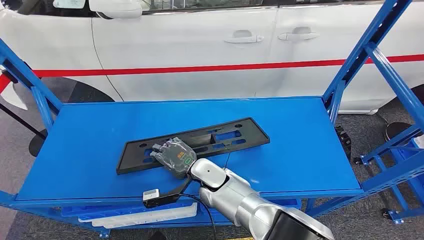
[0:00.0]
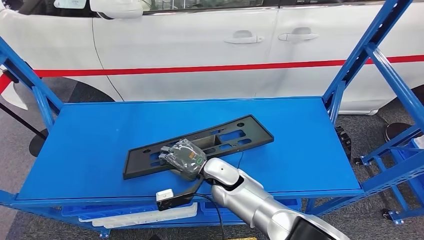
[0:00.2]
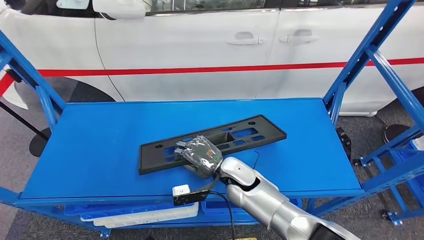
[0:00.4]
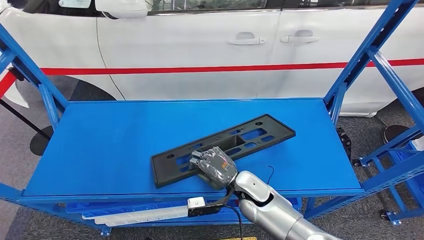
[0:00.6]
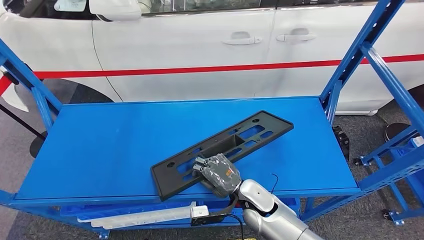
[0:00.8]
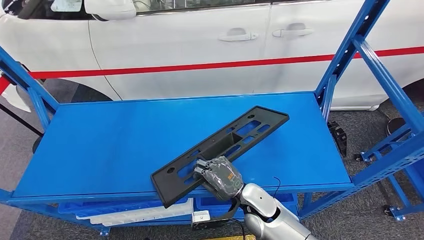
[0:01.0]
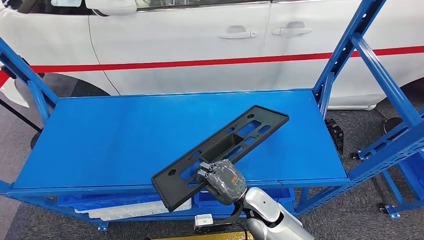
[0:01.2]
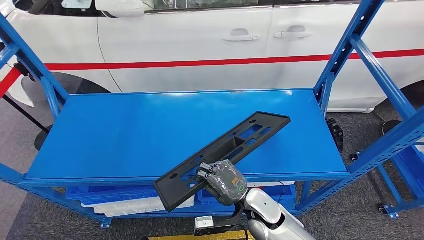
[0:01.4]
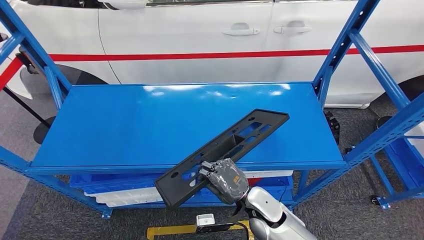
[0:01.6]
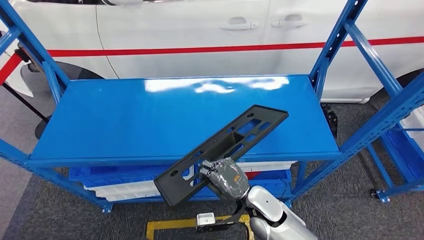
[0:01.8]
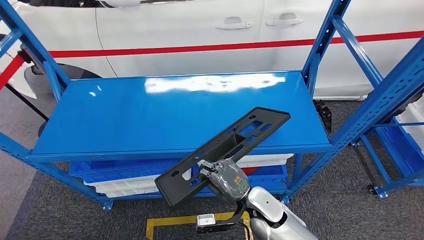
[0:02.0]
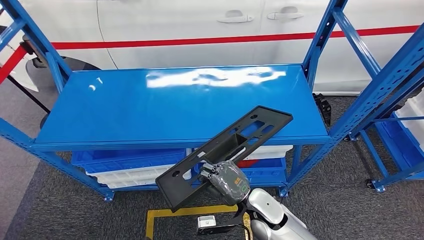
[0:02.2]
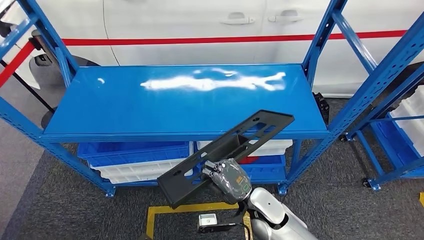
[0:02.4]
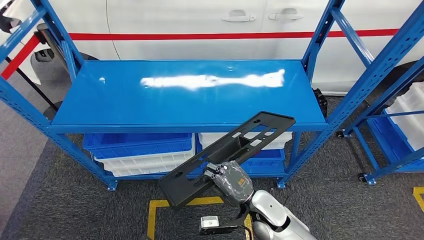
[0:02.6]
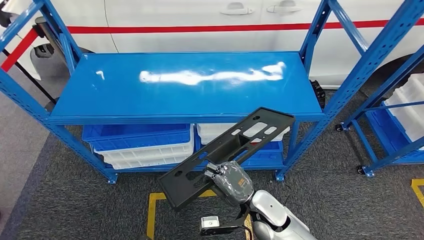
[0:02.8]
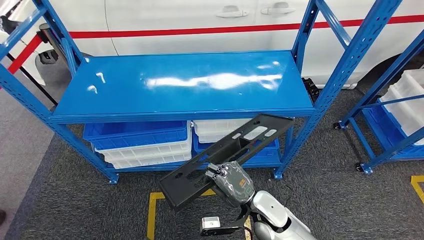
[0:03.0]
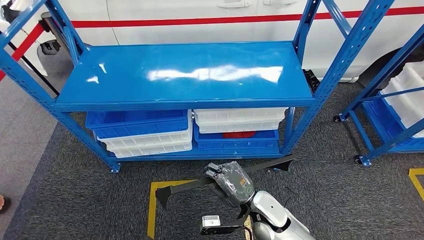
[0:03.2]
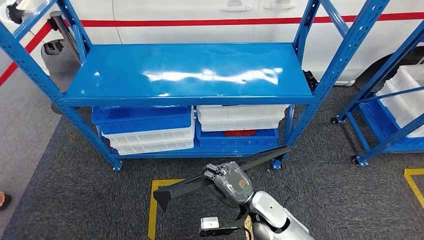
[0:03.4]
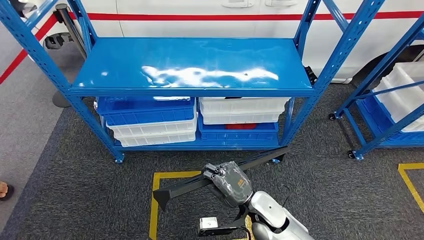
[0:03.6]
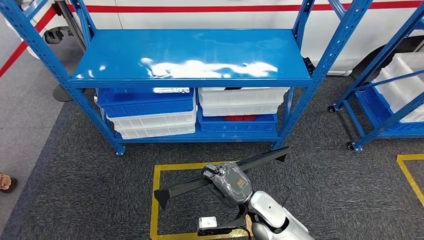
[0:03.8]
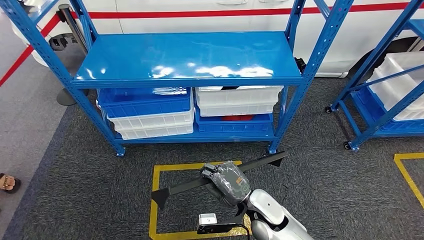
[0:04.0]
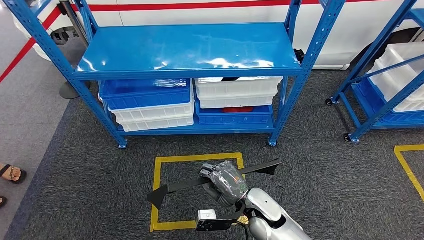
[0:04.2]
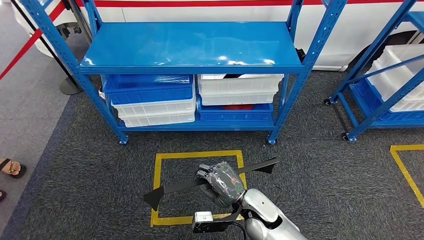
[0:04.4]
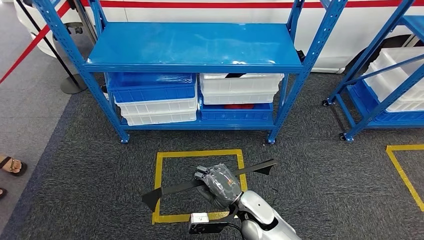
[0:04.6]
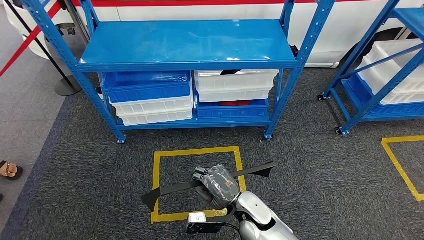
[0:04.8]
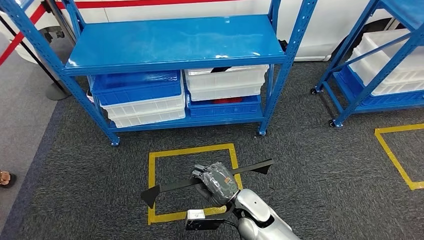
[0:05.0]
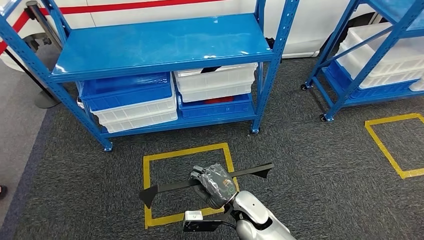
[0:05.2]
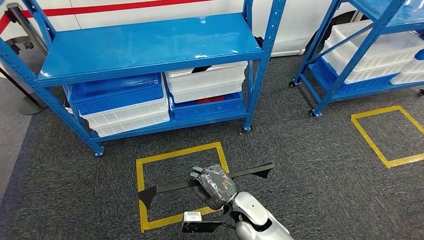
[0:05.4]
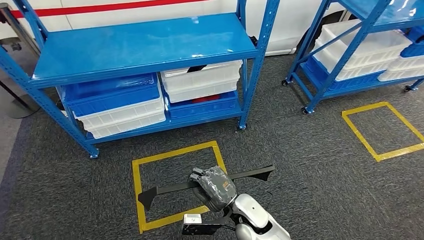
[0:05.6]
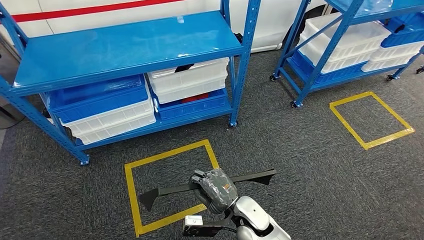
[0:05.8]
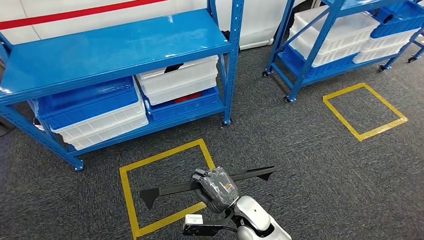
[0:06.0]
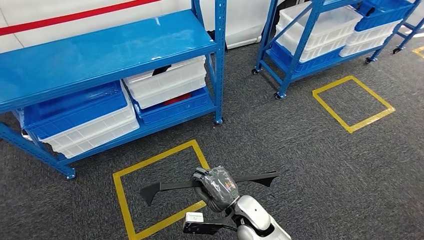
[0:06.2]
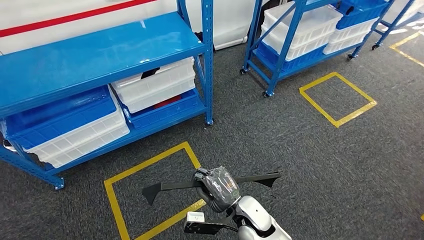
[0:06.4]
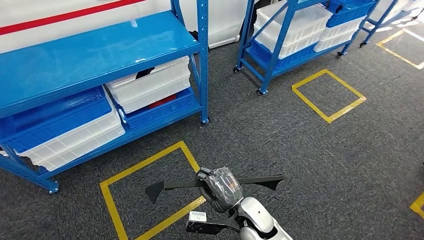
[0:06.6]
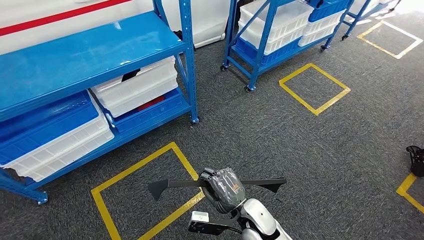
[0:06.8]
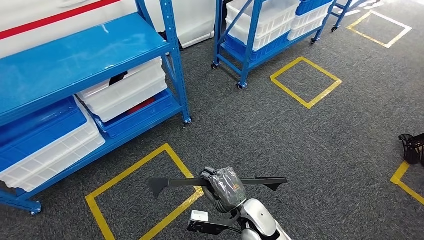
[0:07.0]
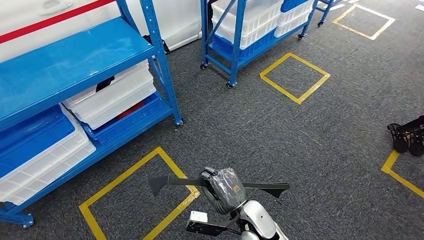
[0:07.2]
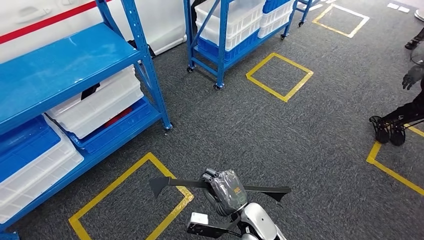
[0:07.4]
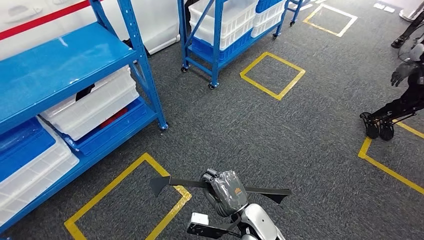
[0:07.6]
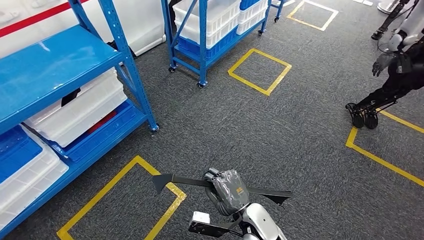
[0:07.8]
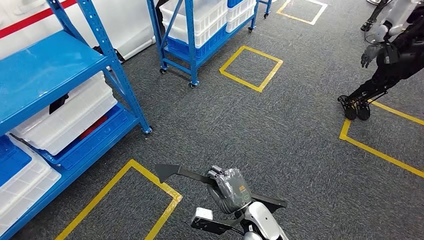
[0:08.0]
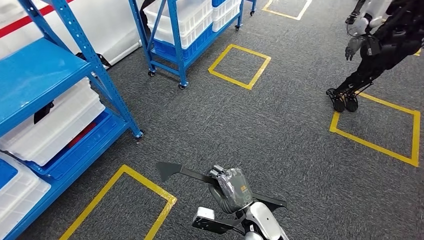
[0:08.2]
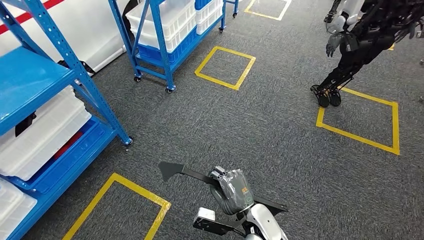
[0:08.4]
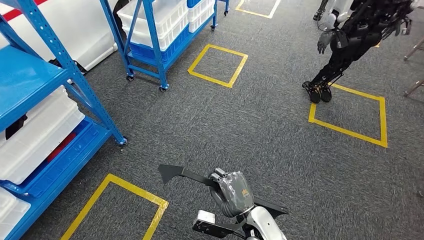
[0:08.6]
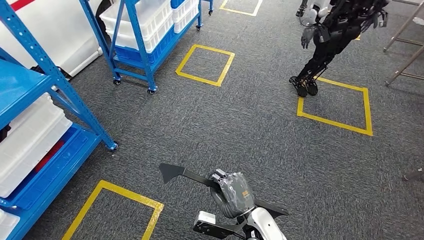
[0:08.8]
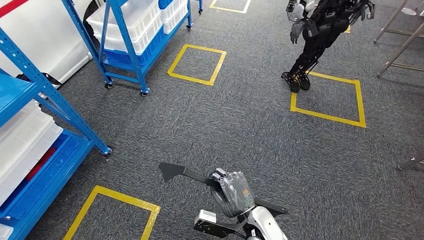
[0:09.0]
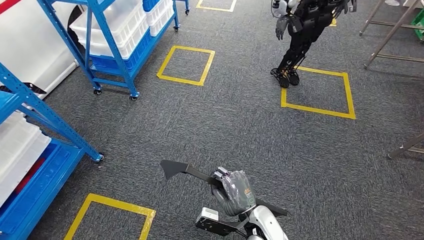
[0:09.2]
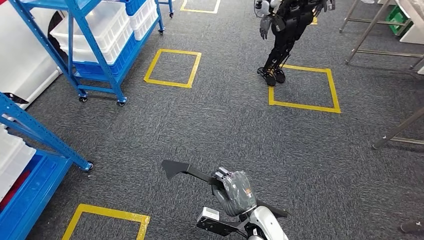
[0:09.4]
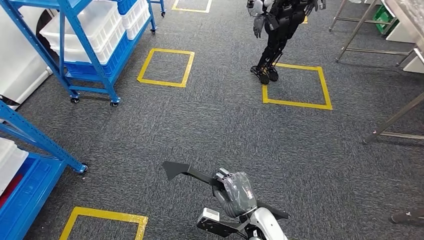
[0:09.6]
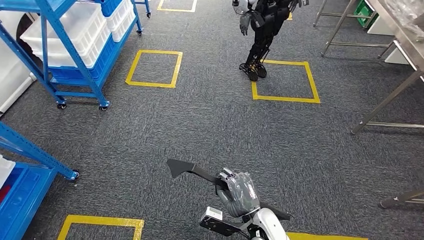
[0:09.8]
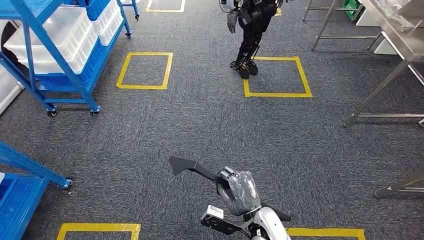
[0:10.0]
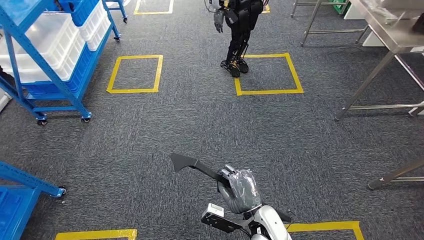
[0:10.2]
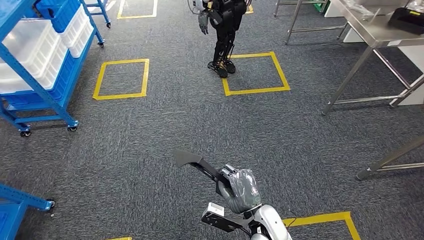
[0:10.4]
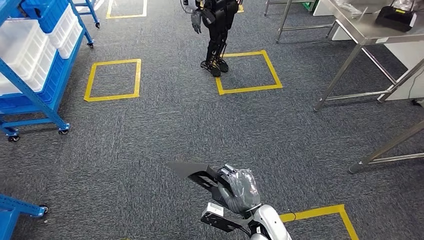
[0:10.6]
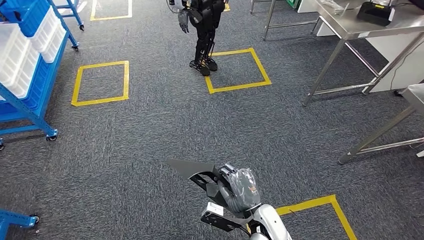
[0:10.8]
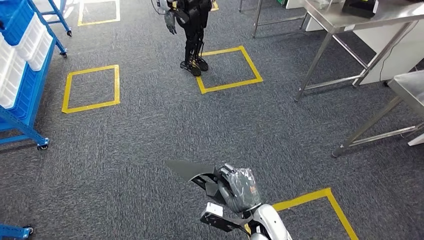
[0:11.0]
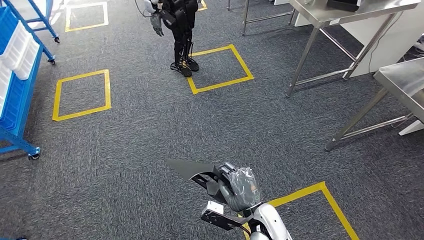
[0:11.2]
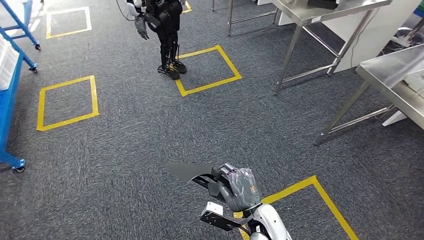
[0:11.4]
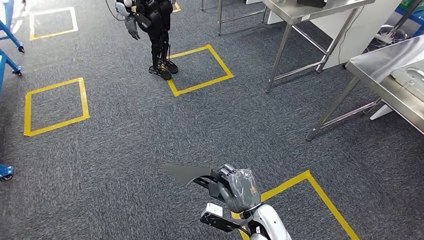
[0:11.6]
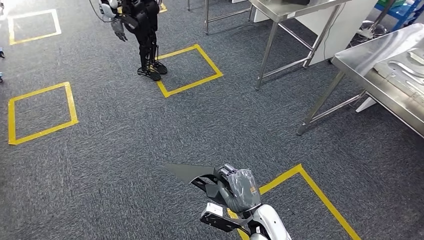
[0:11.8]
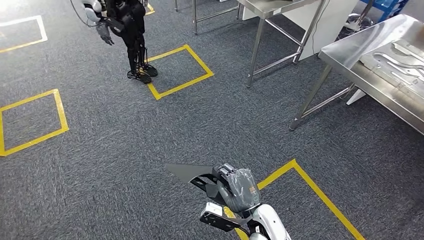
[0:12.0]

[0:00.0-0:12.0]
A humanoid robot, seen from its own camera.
Step, 0:00.0 to 0:02.8: Pick up the large material from the shelf.

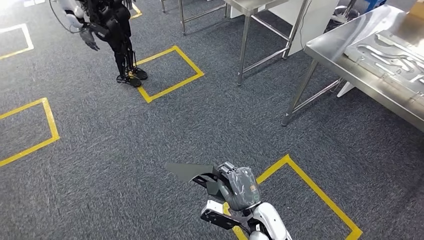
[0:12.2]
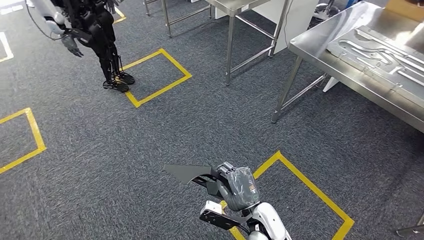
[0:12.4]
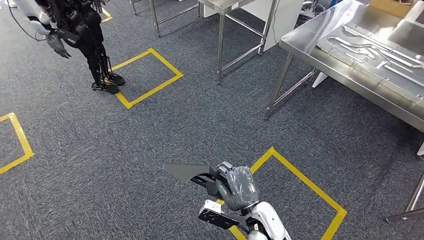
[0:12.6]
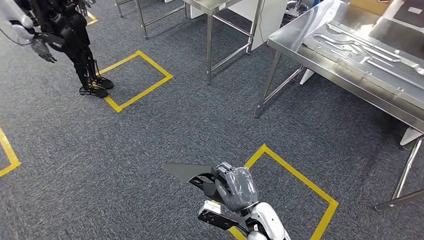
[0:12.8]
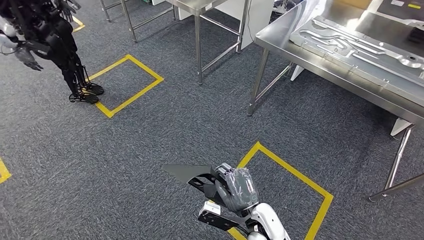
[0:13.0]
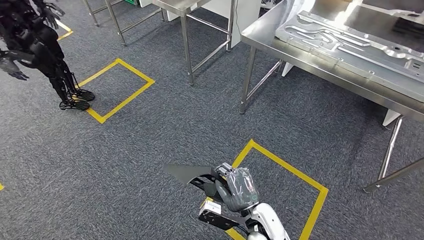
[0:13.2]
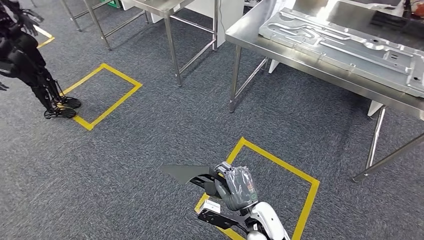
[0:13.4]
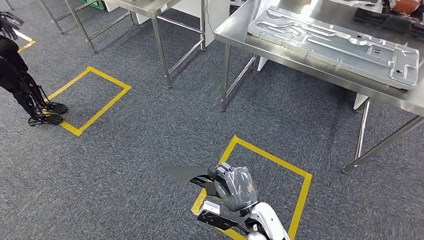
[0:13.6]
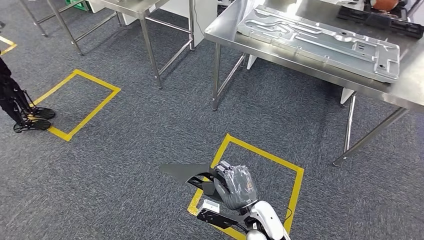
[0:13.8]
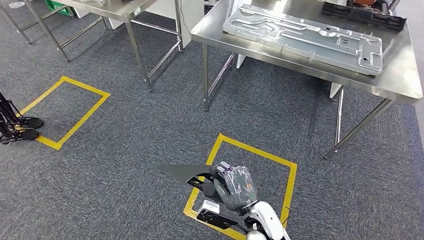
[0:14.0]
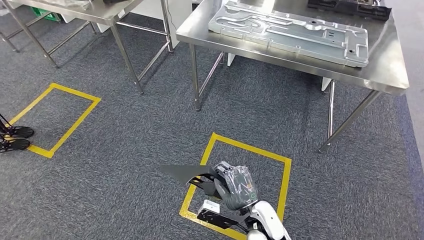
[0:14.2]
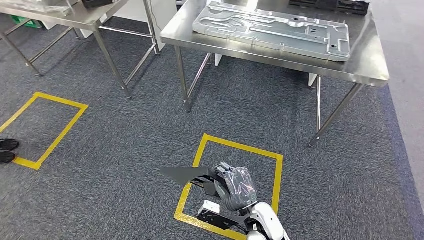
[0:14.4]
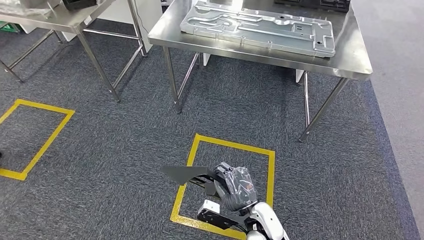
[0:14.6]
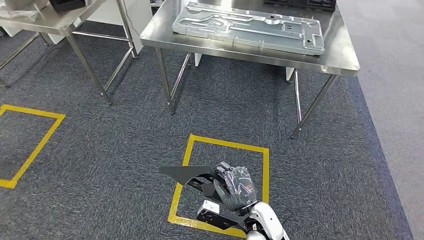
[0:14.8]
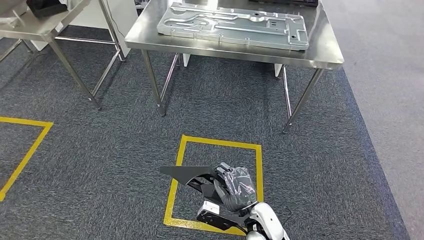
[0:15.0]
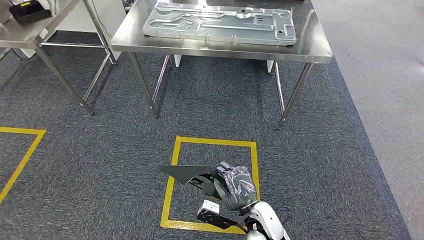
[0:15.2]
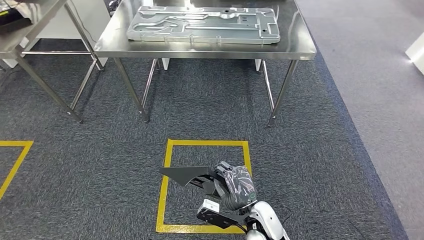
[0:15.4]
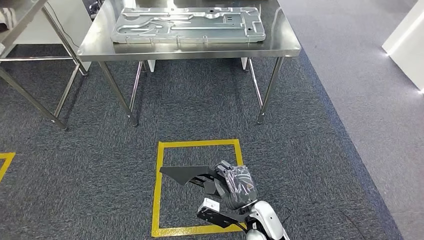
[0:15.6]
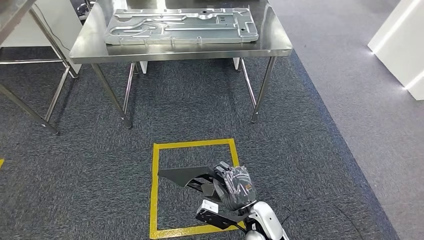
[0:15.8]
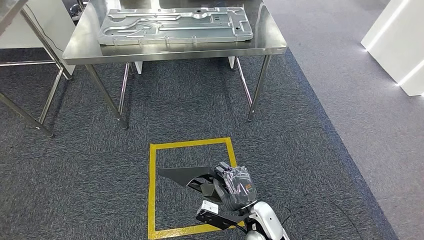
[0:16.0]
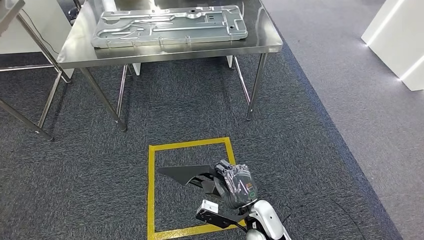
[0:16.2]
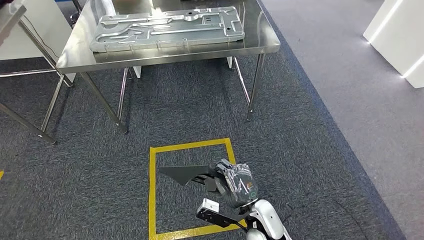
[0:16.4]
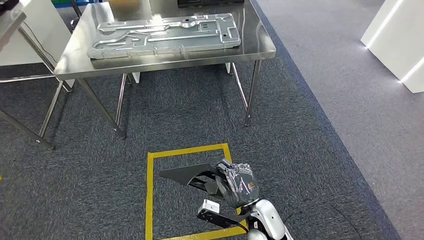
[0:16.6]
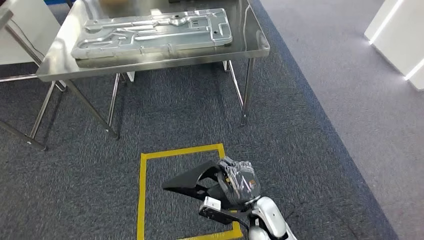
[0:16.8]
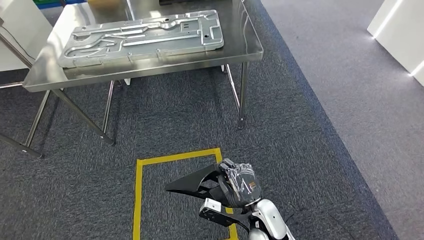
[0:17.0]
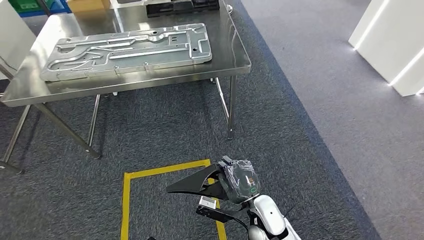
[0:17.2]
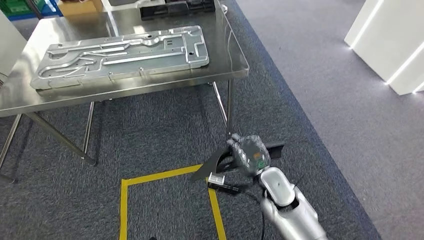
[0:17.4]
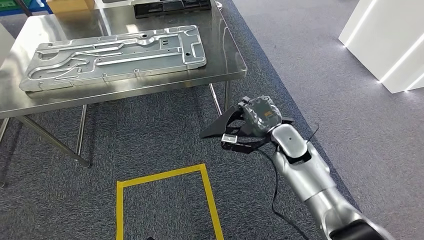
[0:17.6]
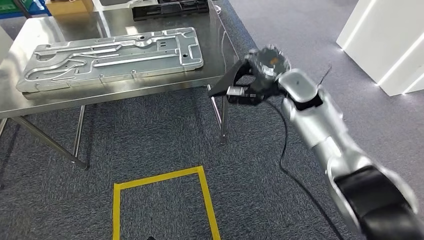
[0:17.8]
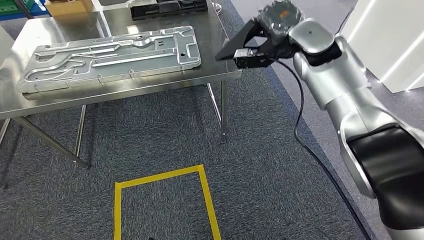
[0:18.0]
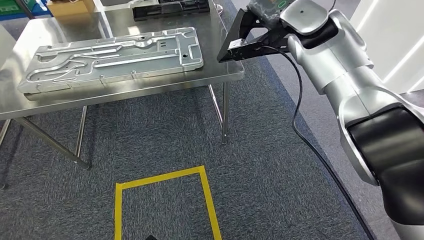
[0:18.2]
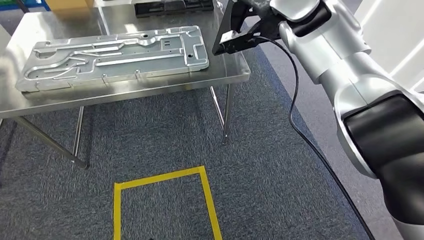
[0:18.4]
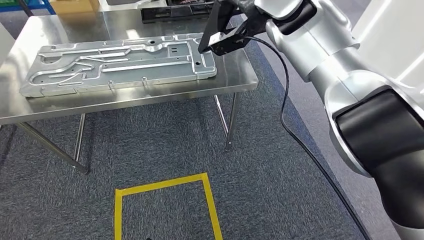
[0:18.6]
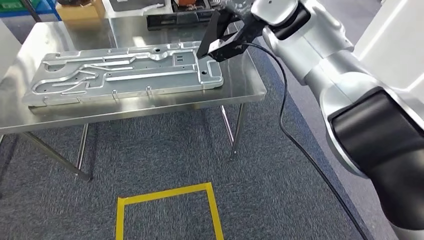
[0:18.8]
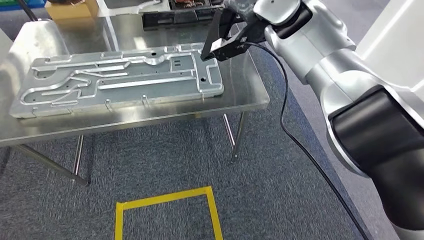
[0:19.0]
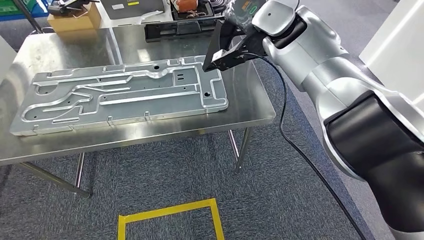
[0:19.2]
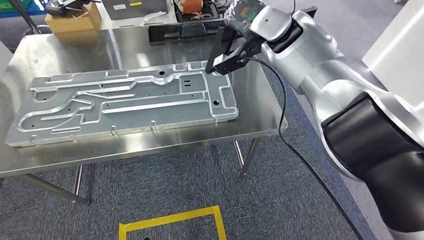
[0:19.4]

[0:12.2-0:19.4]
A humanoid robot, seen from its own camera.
Step, 0:13.0 to 0:18.4: Move the large material to the workbench.
